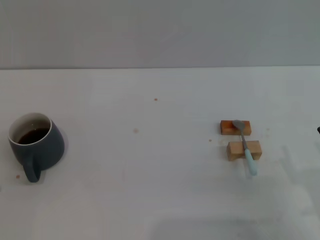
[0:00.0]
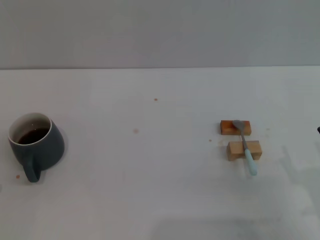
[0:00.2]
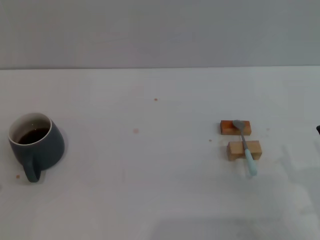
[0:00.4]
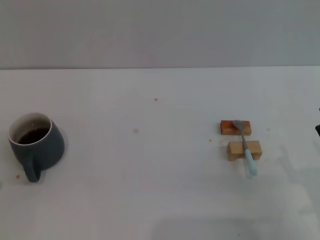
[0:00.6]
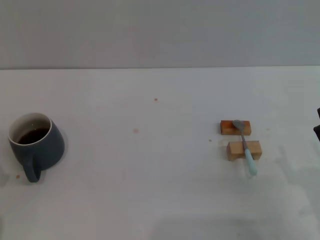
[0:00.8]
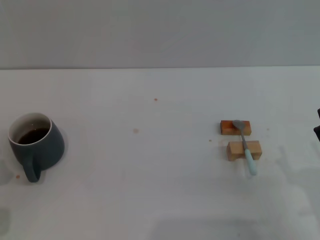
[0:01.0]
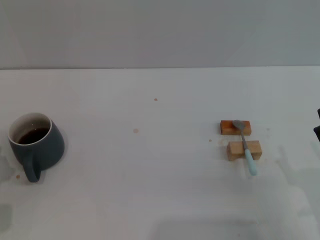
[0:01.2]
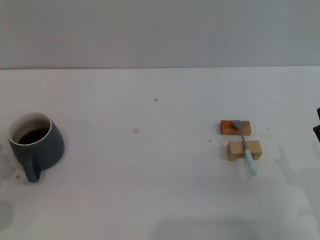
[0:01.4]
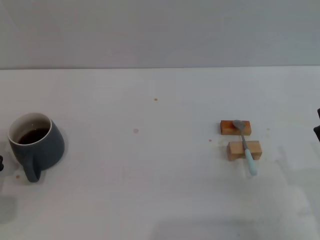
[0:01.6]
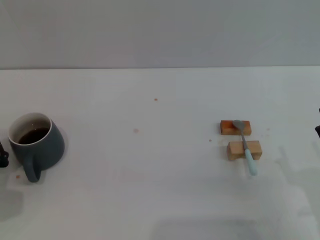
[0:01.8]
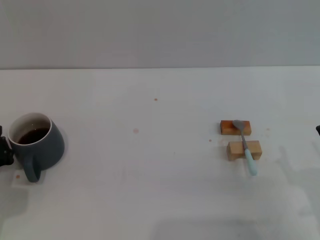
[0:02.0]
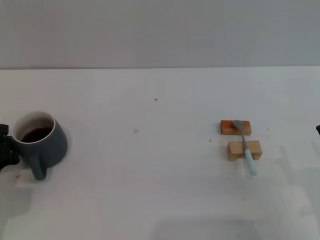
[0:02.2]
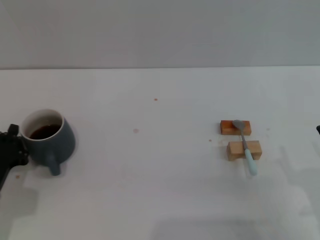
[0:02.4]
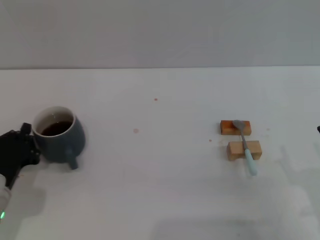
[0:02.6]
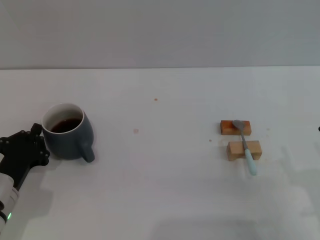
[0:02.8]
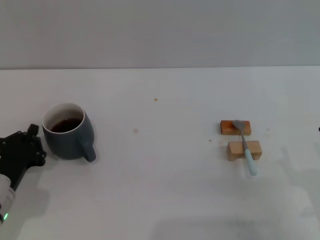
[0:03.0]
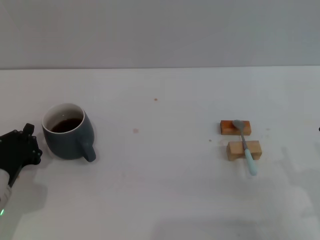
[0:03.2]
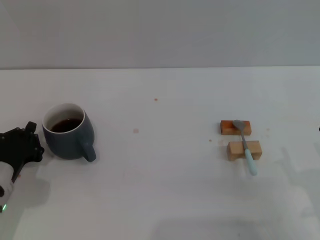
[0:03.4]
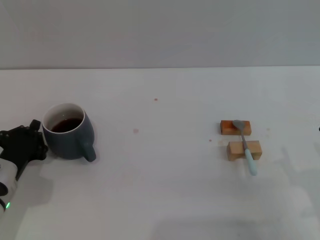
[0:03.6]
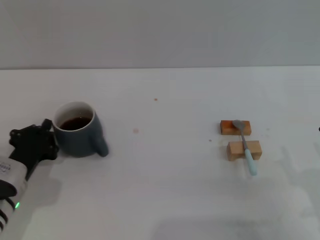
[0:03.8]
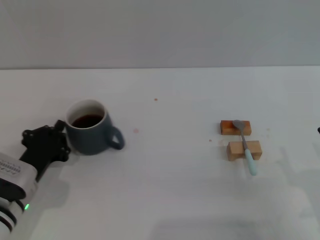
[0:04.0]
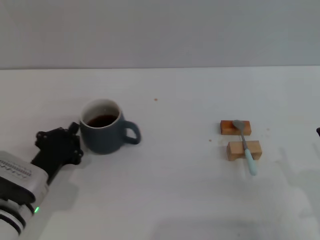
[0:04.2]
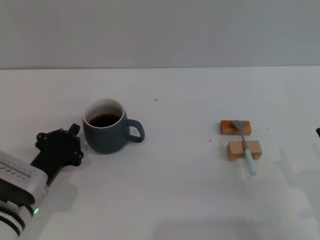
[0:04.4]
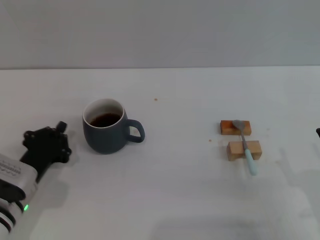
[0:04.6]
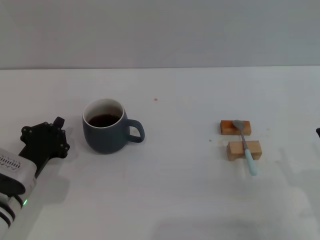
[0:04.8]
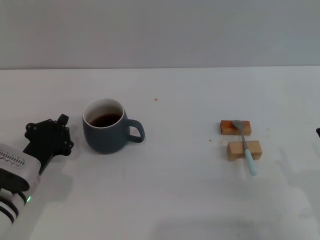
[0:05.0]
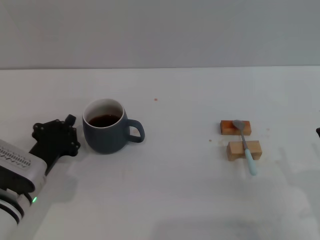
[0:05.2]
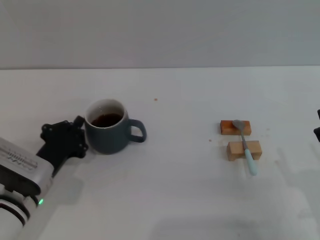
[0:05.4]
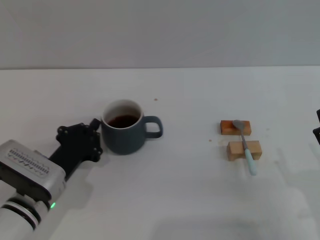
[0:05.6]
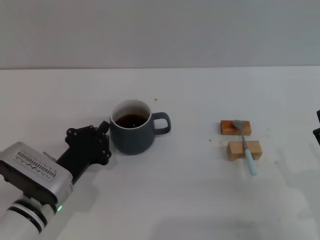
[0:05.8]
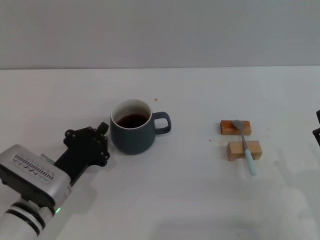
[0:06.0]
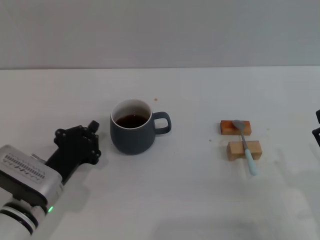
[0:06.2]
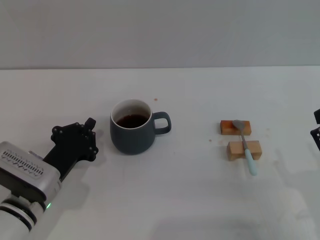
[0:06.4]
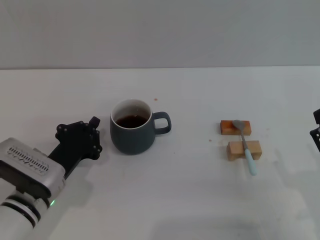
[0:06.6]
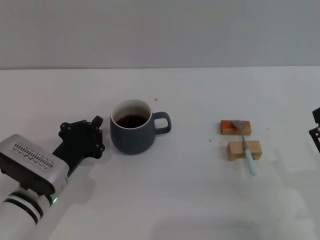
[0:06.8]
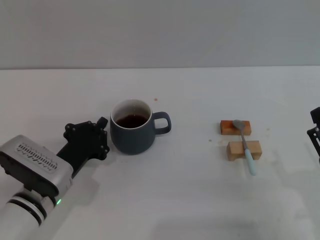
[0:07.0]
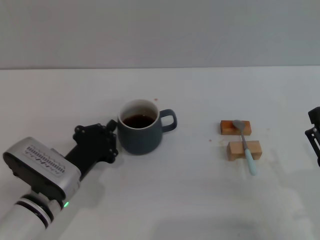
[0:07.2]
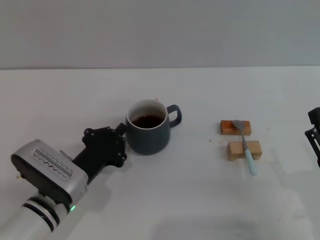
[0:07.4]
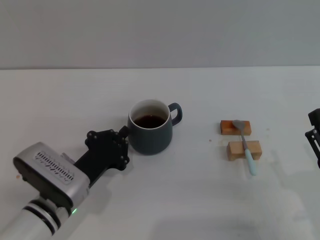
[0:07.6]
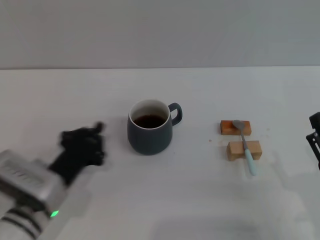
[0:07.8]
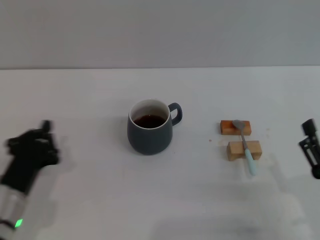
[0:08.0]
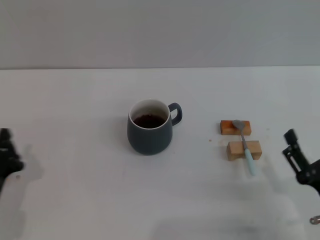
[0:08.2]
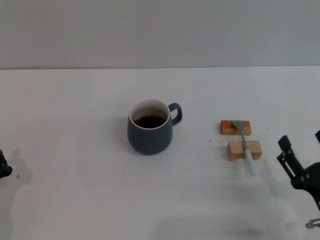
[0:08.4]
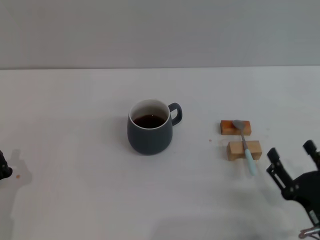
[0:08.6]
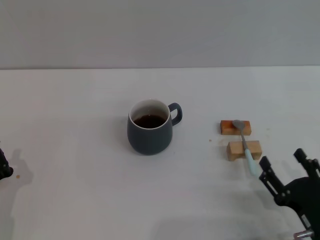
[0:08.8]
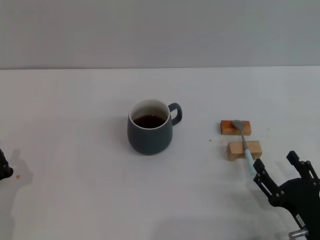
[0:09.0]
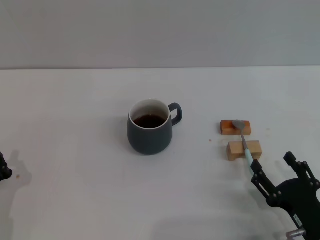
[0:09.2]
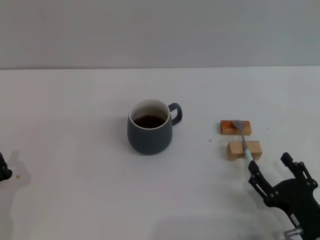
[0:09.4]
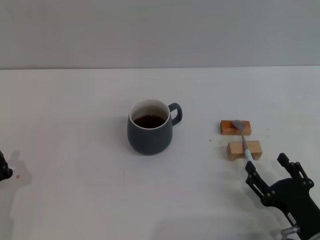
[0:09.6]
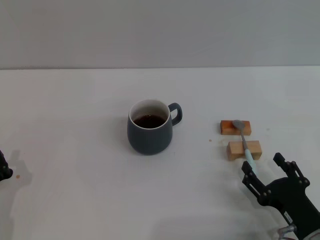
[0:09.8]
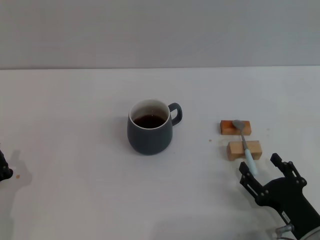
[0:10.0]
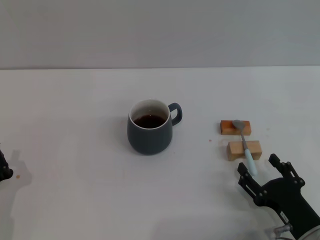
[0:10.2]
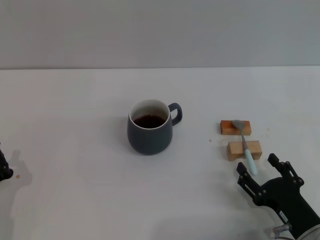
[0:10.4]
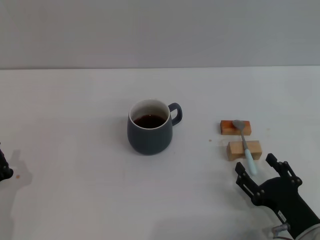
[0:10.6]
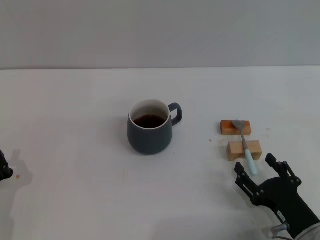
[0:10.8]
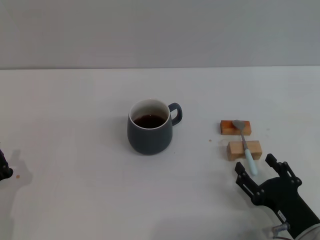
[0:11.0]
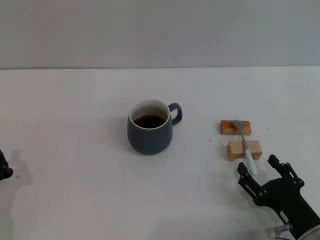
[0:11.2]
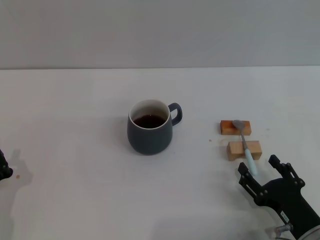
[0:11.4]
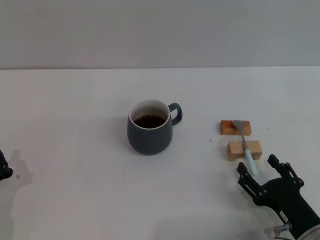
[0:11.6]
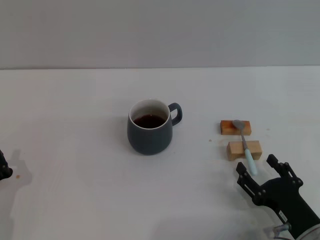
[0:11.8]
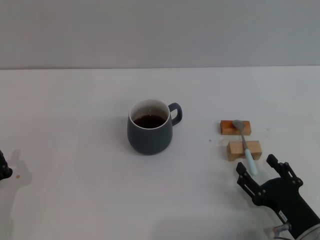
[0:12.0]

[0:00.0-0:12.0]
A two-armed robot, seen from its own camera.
Task of the whole recording: Move the grey cup to the center, lift the blue spoon, stir it three times in the cup, and put the spoon into the cup.
Step, 0:00.0 to 0:07.6: Move the cup with coffee to the center of view with the left gripper.
0:01.6 to 0:03.0: There are only small adjustments of the grippers.
0:03.0 to 0:04.4: The grippers stay close to where they were, moving slightly.
0:04.4 to 0:07.6: The grippers stay close to where they were, moving slightly.
0:07.6 to 0:09.0: The left gripper heads to the left and backward, covering some 15 cm; the right gripper moves about 5 cm.
0:09.0 to 0:10.4: The grippers move only a little.
0:10.4 to 0:12.0: Both grippers stay about where they are.

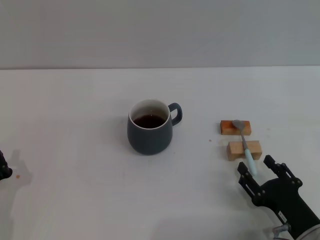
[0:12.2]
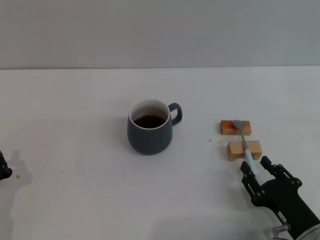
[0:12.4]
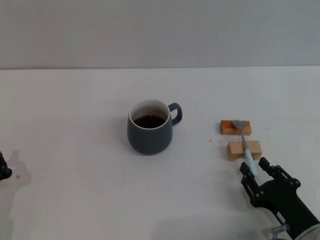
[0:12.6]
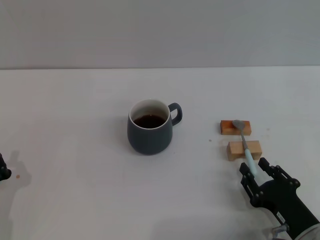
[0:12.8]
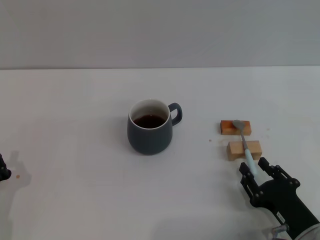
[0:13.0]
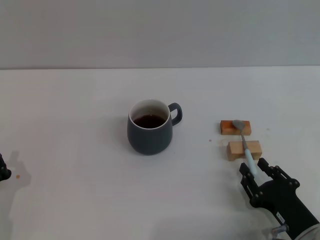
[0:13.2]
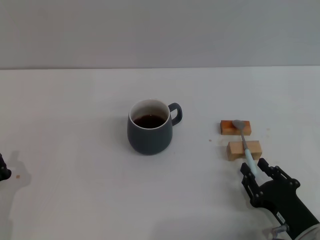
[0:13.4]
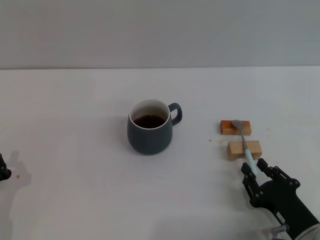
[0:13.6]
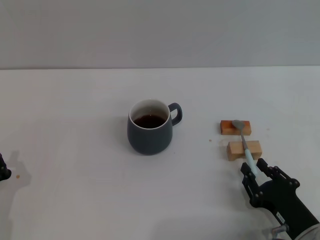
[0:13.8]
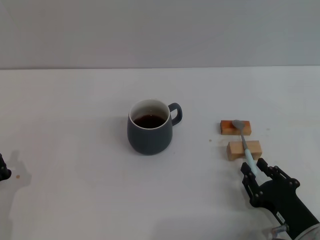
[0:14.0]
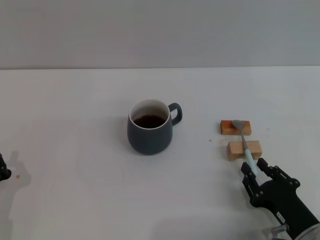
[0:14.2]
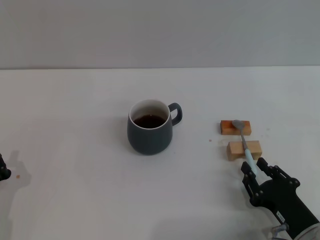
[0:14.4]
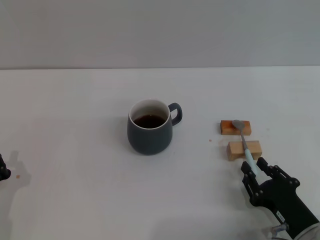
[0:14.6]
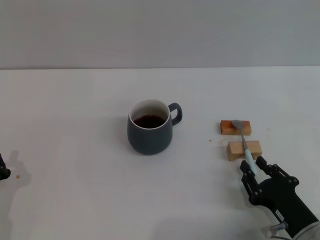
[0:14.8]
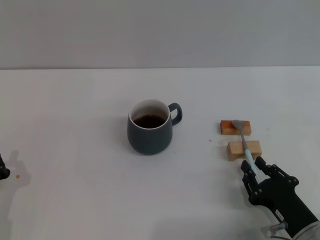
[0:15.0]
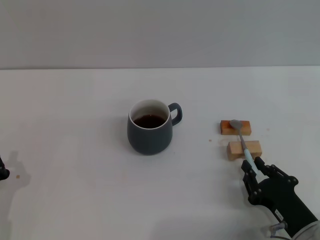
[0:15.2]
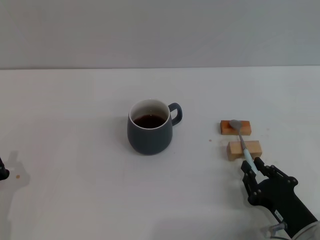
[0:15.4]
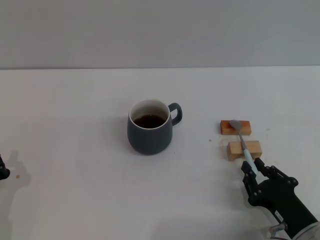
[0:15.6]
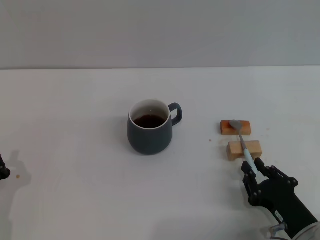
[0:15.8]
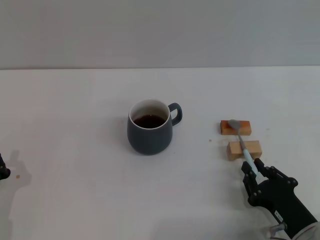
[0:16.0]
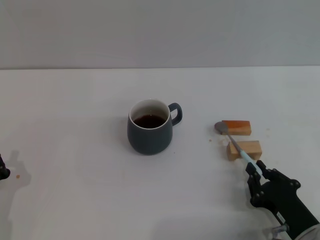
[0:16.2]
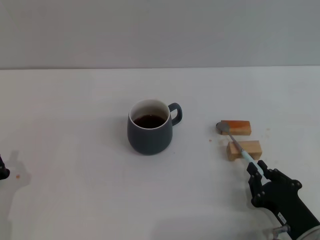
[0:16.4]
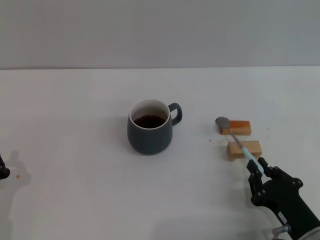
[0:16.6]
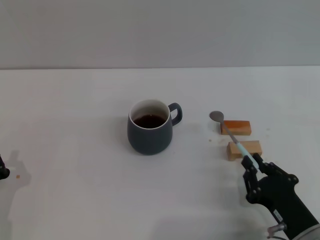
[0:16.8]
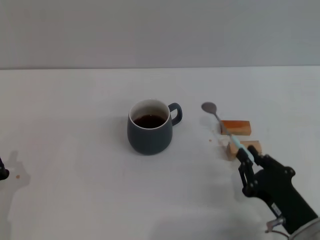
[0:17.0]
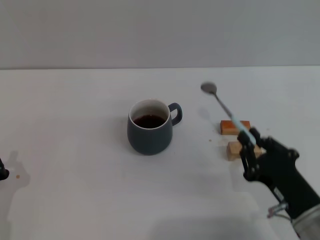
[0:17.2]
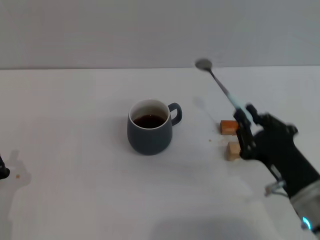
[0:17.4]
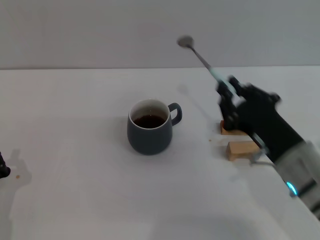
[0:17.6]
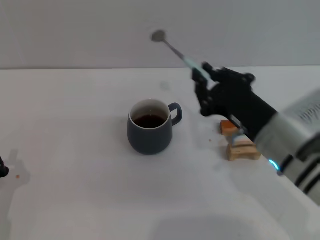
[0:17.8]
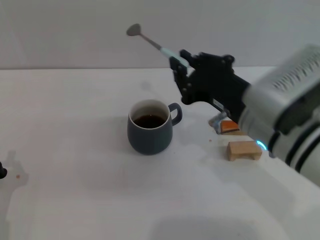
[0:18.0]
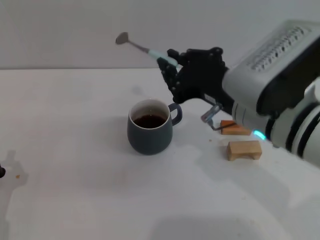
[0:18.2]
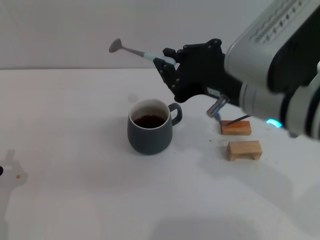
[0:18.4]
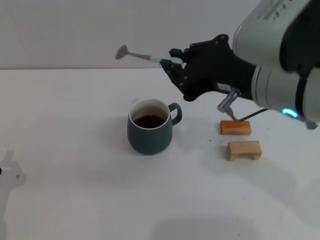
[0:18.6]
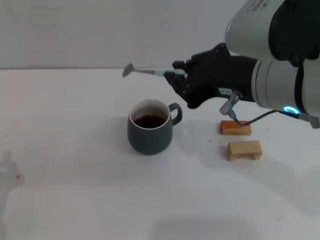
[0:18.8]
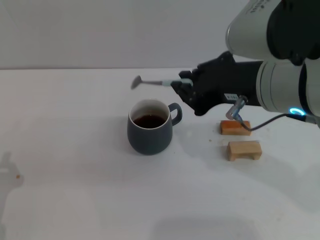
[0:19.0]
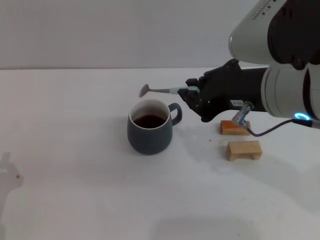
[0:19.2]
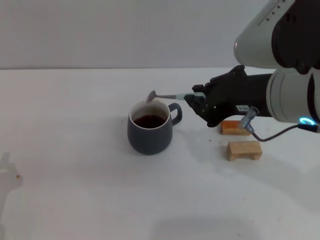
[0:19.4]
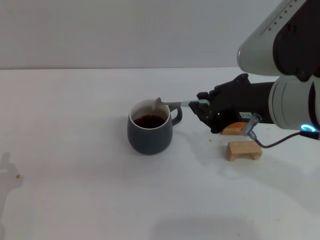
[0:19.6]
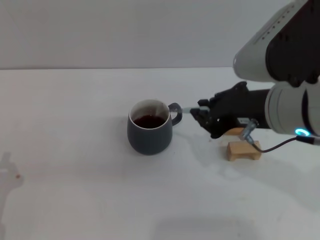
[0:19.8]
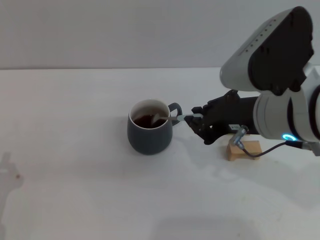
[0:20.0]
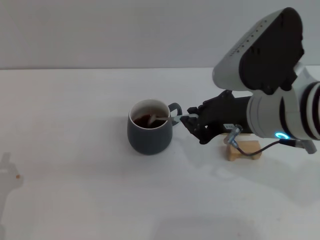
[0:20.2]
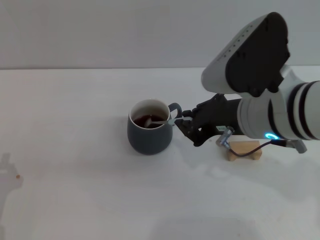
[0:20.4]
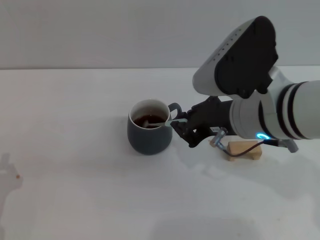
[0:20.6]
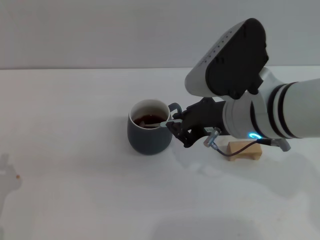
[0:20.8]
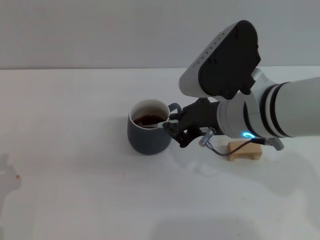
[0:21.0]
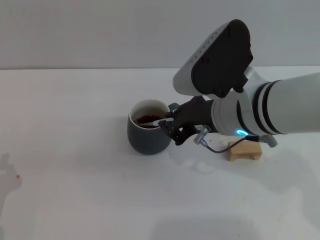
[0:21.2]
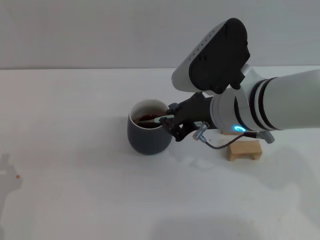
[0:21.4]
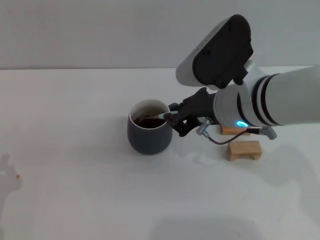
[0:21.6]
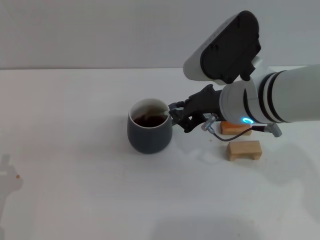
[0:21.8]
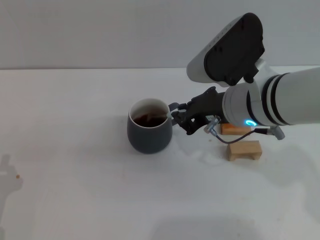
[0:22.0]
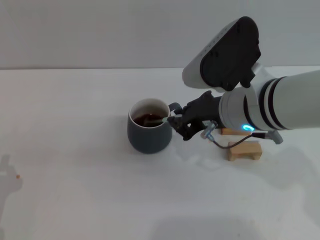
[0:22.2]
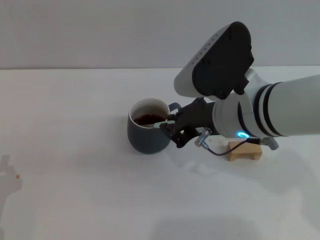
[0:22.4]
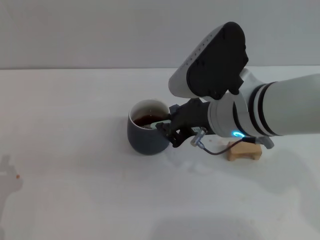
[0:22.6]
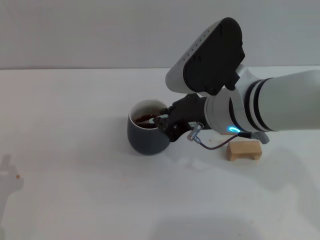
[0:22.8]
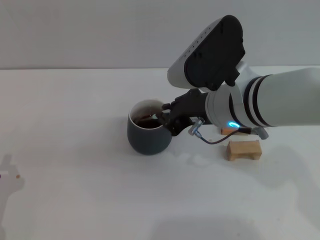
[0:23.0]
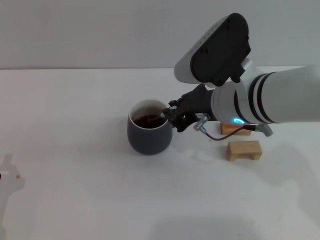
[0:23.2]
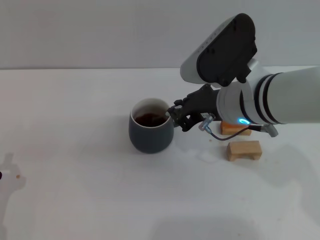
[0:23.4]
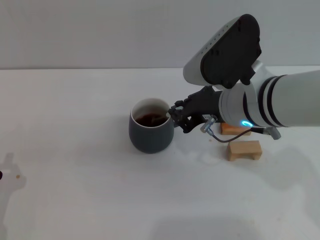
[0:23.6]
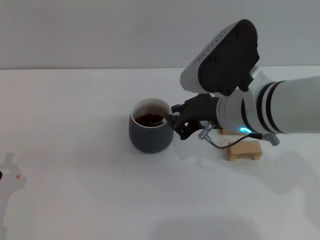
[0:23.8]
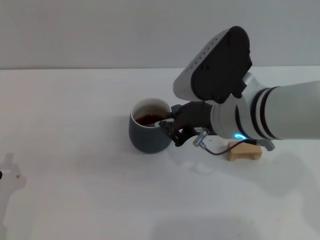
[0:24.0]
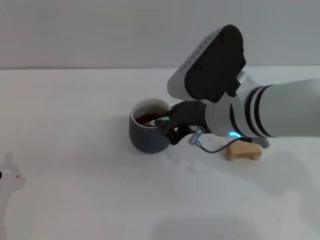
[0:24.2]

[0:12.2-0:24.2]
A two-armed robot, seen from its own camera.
Task of the whole recording: Move the grey cup to the center, lift the blue spoon, stir it three times in the cup, and put the spoon into the cup.
Step, 0:12.2 to 0:17.0: Pick up the spoon with the right gripper.
0:12.2 to 0:13.8: The right gripper closes up.
0:13.8 to 0:16.6: Neither gripper changes place.
0:16.6 to 0:18.2: The right gripper shifts about 25 cm upward, to the left and forward.
0:19.8 to 0:21.2: The right gripper shifts by some 5 cm.
0:21.2 to 0:24.2: The grippers move only a little.
